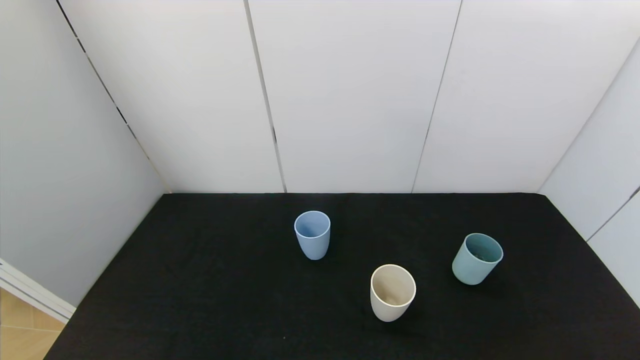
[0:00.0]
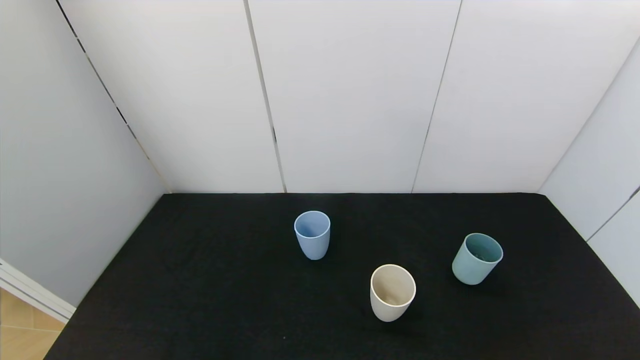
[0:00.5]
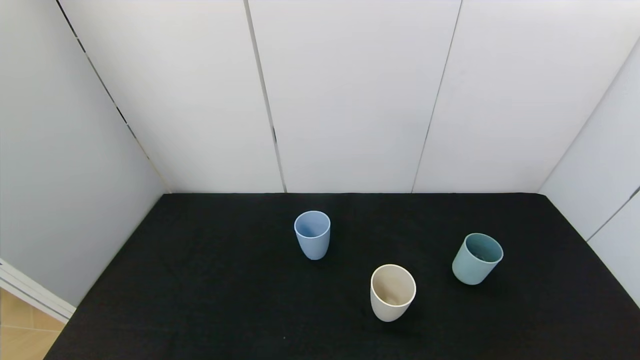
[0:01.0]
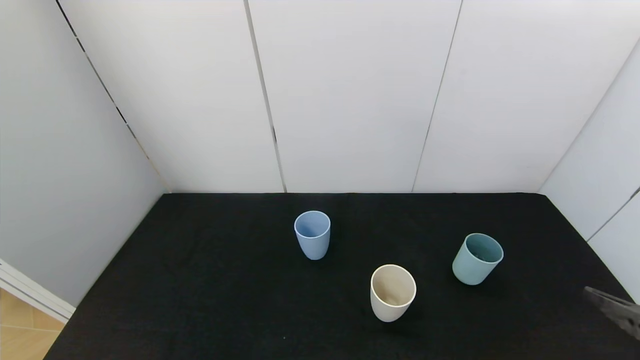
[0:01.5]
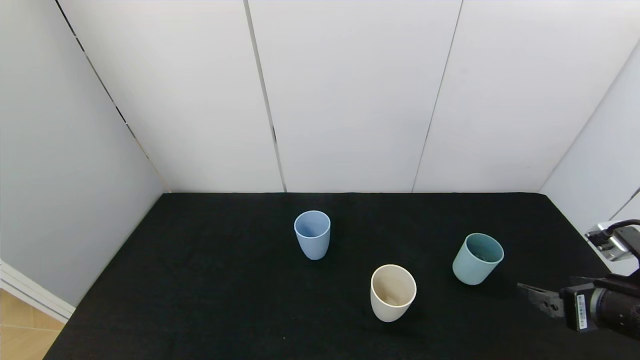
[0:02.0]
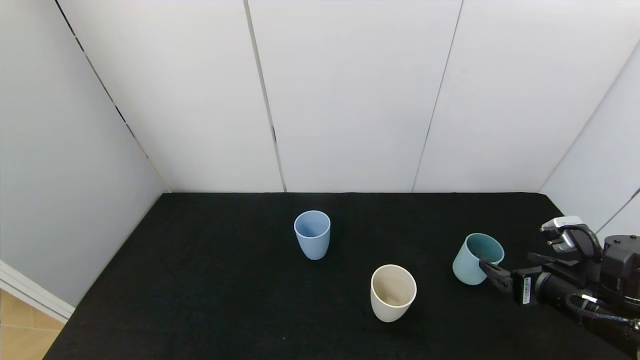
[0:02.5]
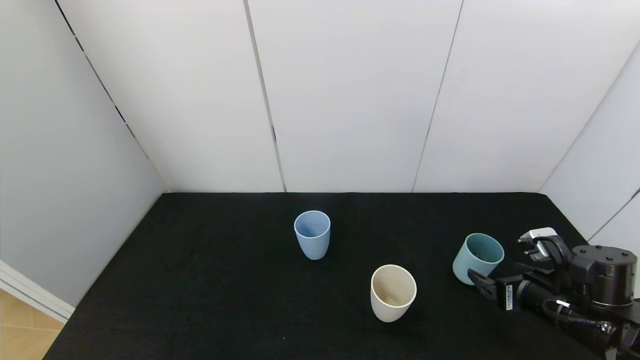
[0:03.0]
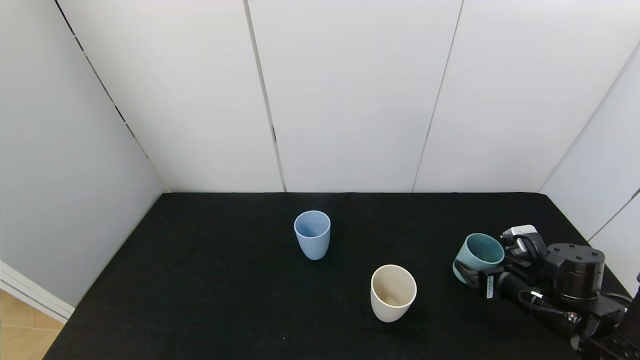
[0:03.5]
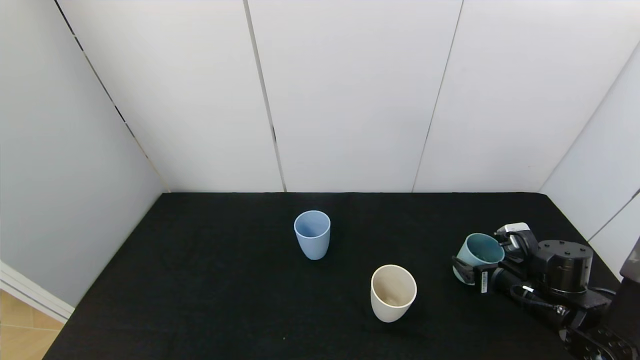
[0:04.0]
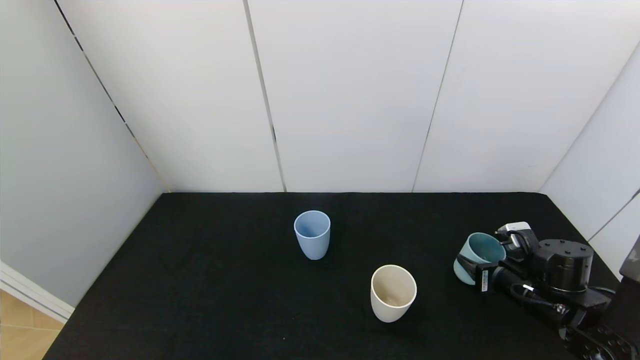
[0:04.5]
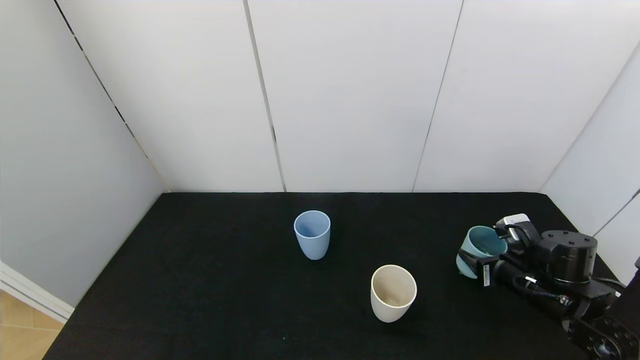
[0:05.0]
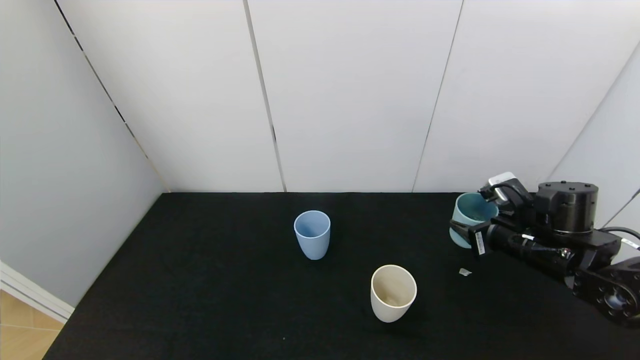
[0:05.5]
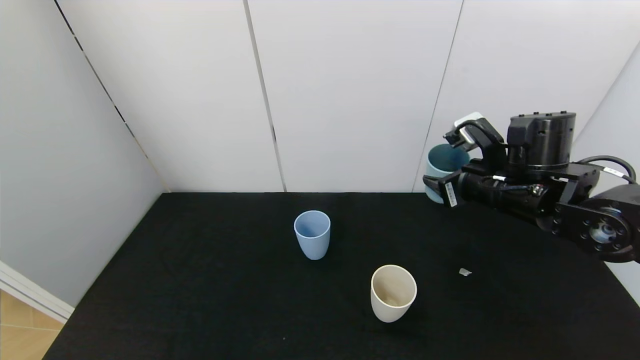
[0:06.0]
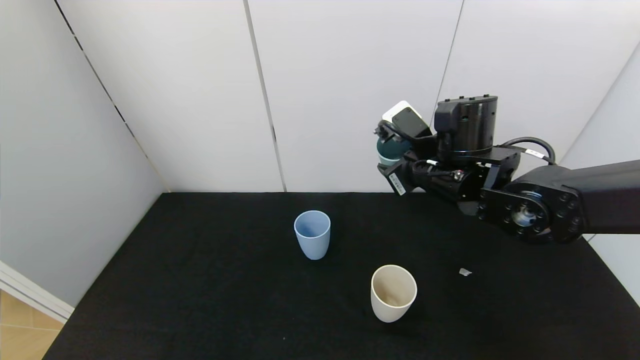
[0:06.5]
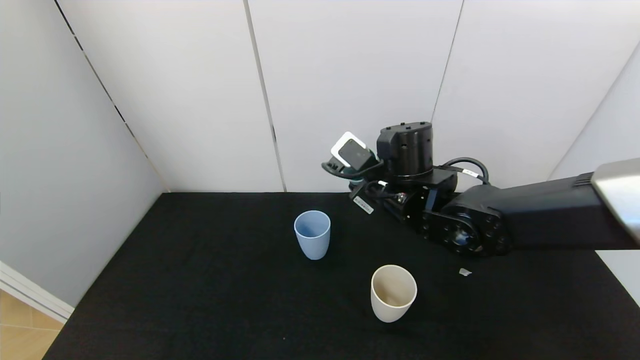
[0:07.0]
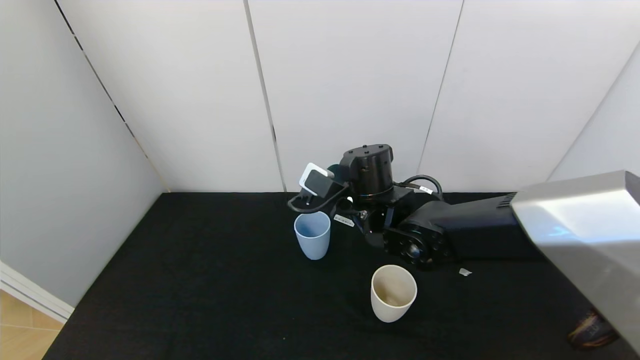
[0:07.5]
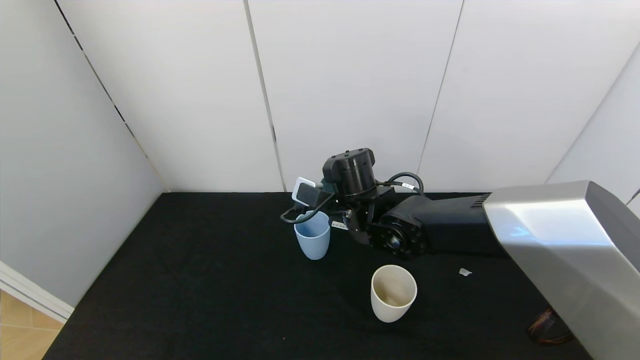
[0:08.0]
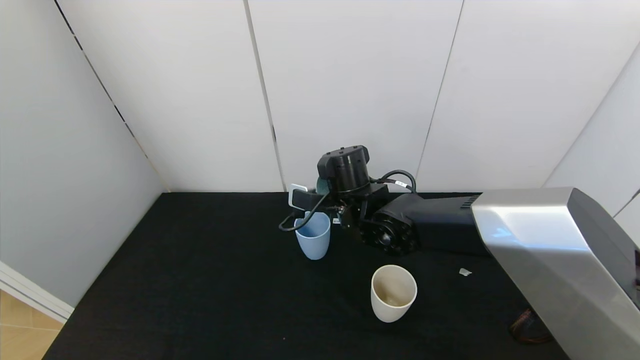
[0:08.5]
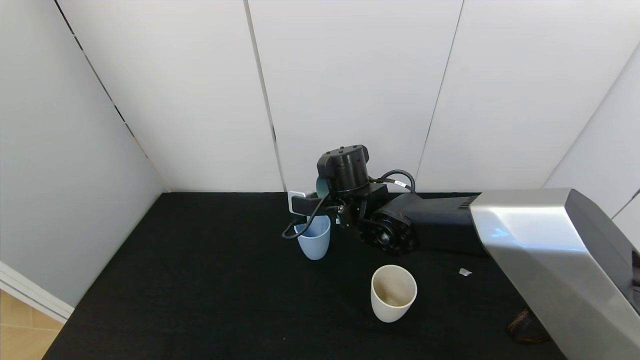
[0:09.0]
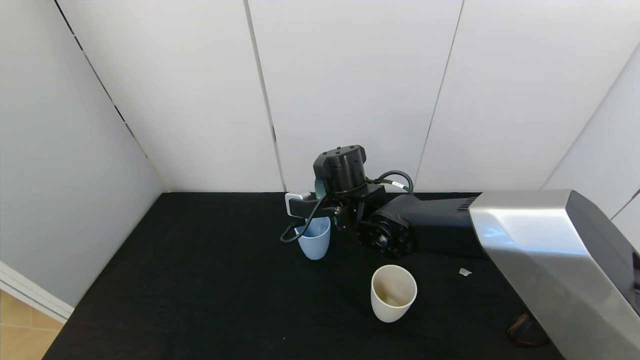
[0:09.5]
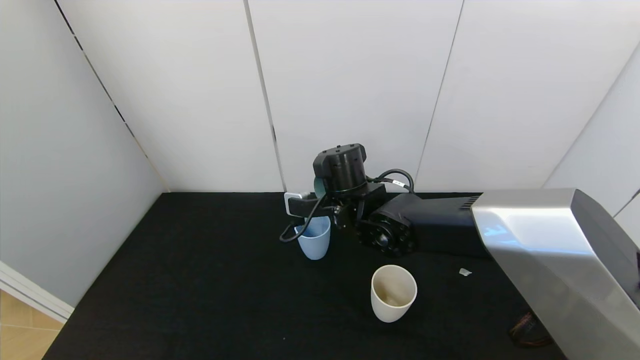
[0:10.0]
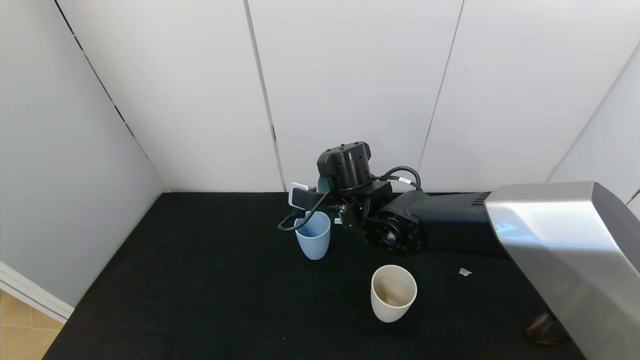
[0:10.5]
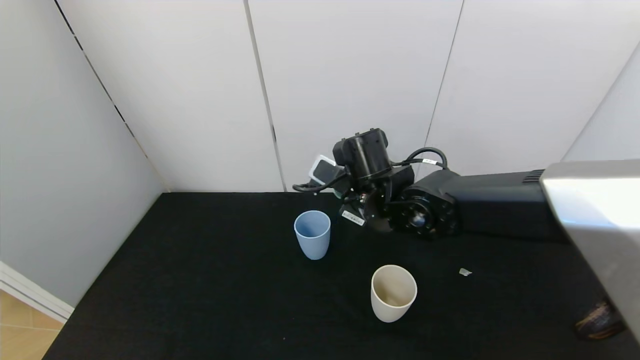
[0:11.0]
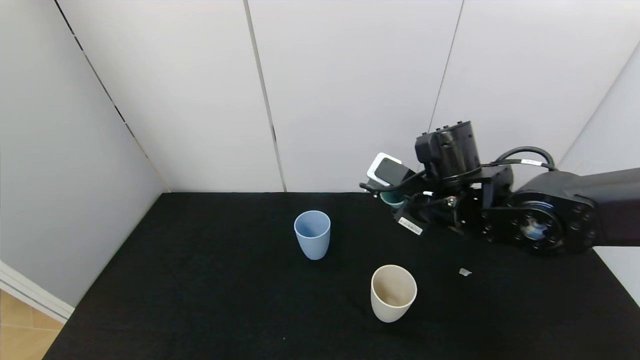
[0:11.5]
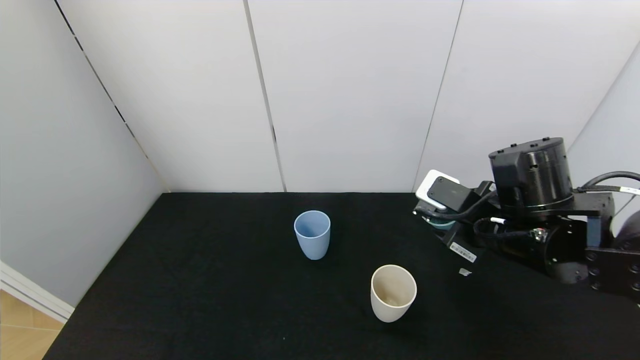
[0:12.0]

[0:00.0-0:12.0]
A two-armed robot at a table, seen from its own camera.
Task of the whole recording: use the gripper to pour the water into the other two cups on black table.
Step, 0:00.0 to 0:04.5: Grasp the green cup with the right gripper.
Step, 0:05.0 to 0:10.5: Pour water from green cup to blue cup with the right gripper.
0:00.0 to 0:02.0: The right gripper goes roughly 20 cm forward.
0:02.0 to 0:04.0: The right gripper travels forward and downward by about 15 cm.
0:04.0 to 0:06.0: The right gripper travels upward and to the left by about 20 cm, and closes.
0:06.0 to 0:08.0: The right gripper is displaced to the left by about 20 cm.
0:10.0 to 0:12.0: The right gripper travels to the right and backward by roughly 20 cm.

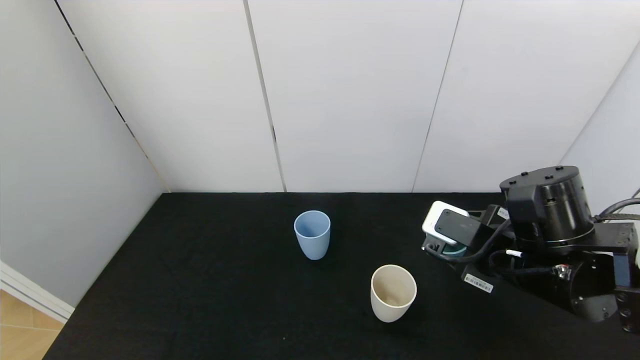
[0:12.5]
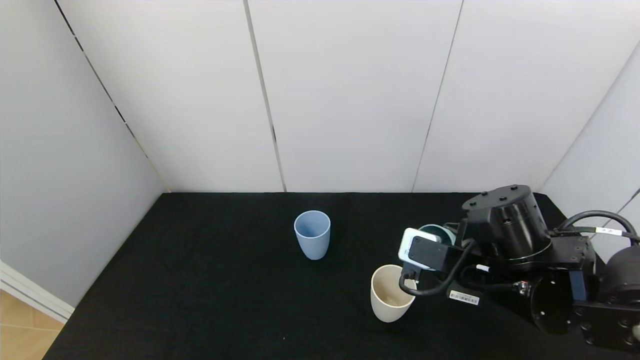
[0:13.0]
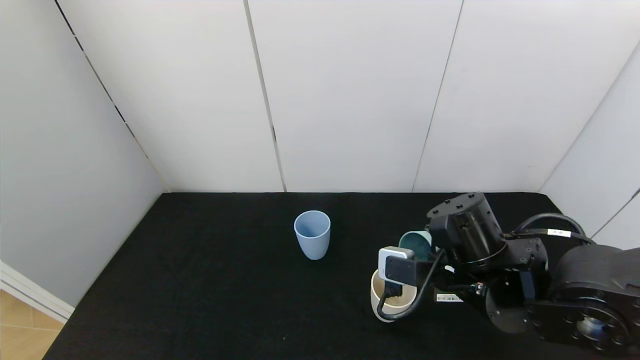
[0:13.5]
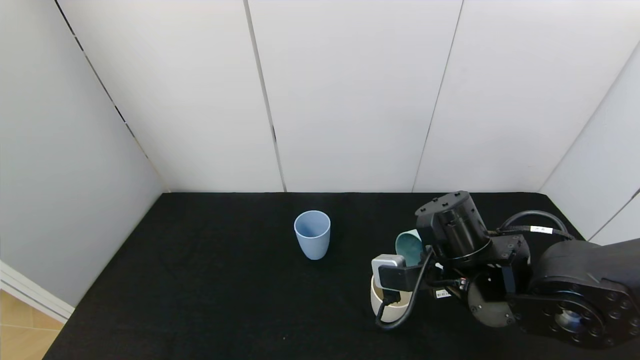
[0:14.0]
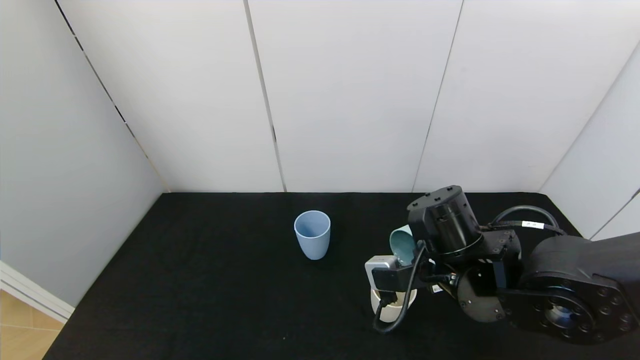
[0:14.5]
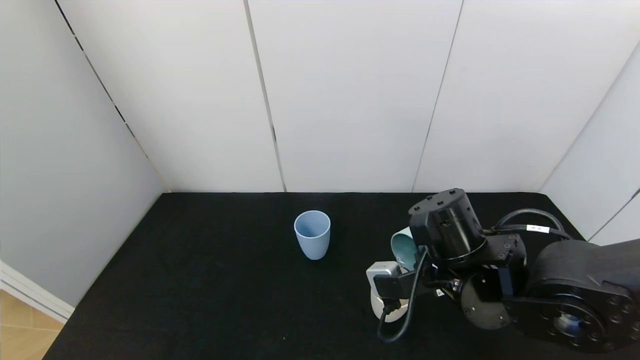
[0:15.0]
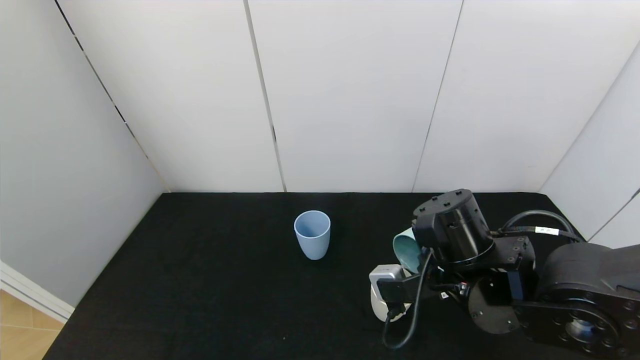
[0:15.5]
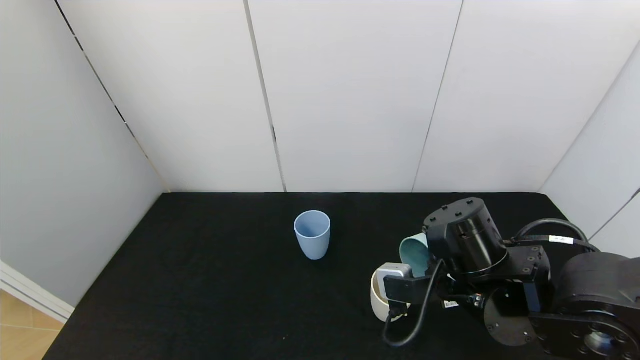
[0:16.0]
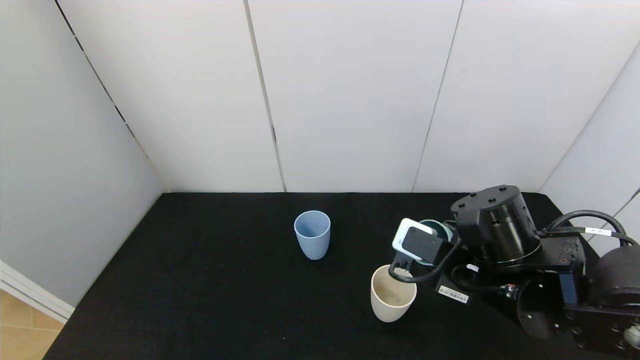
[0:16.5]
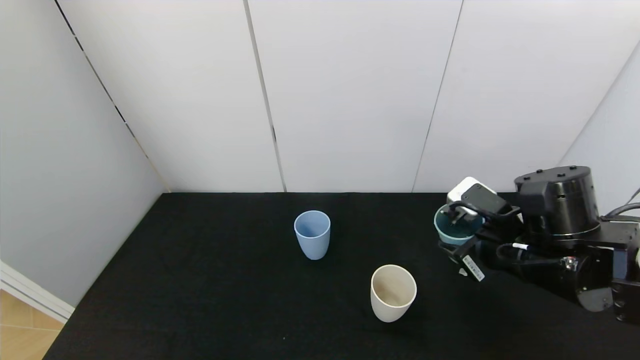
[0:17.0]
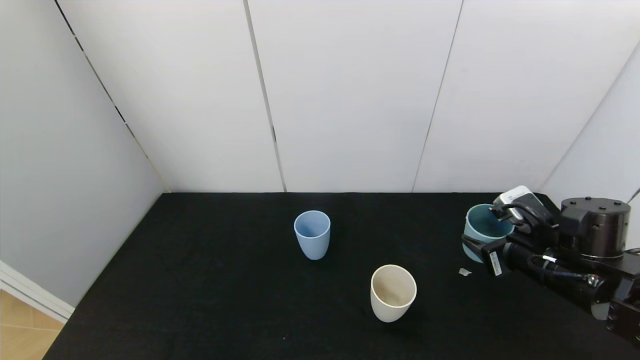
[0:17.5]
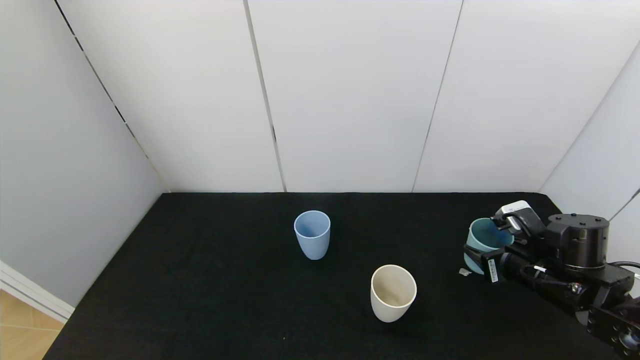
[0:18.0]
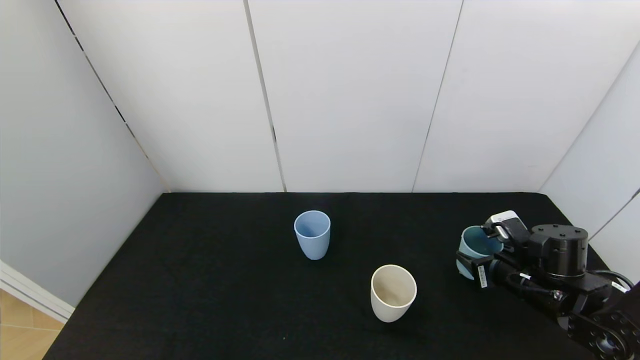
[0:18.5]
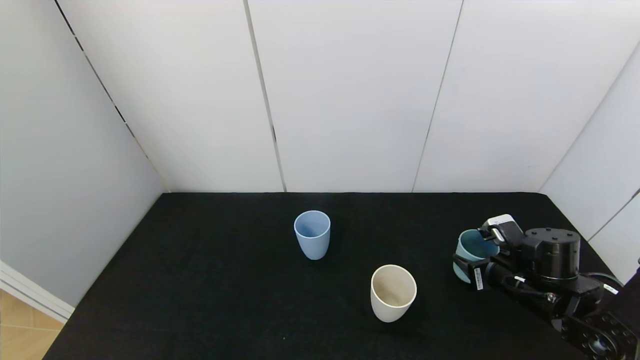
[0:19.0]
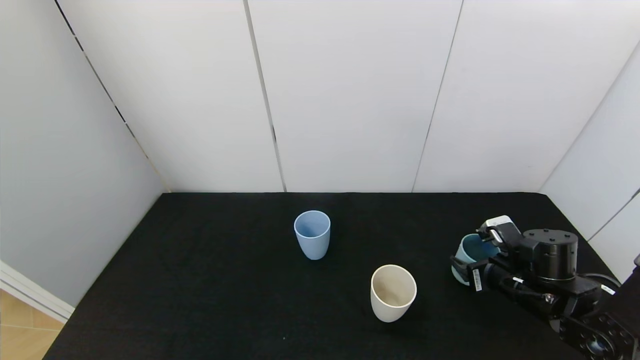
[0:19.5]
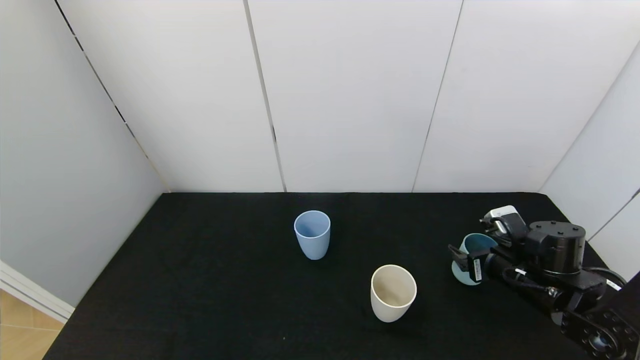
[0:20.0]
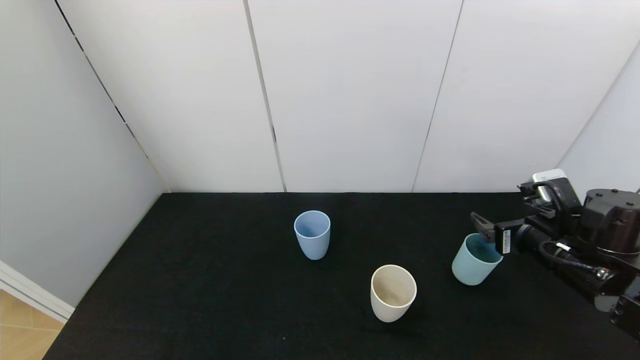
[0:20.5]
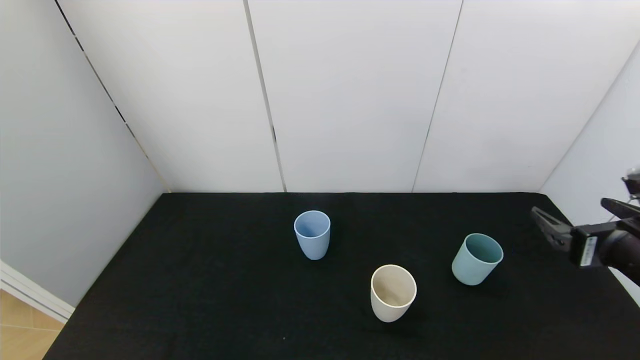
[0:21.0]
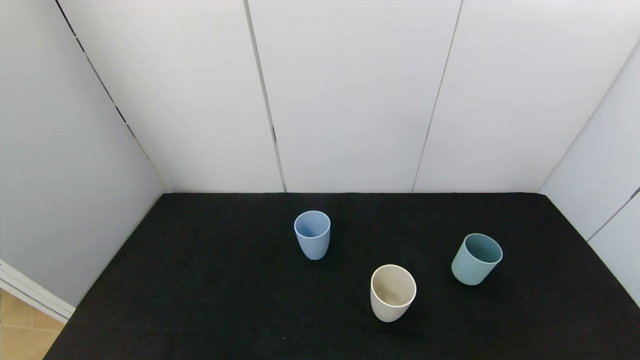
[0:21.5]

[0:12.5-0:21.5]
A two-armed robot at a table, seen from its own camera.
Task of the whole recording: use the gripper to pour the water into the other two cups on black table.
Step, 0:12.5 to 0:16.0: Pour water from green cup to white cup with the right gripper.
Step, 0:16.5 to 0:20.0: Place the green cup with the right gripper.
0:12.5 to 0:14.5: The right gripper goes about 5 cm to the left.
0:14.5 to 0:17.0: The right gripper shifts approximately 10 cm to the right.
0:17.0 to 0:19.5: The right gripper heads downward and to the right, covering some 15 cm, and opens its fingers.
0:19.5 to 0:21.5: The right gripper is displaced backward and upward by some 25 cm, and opens its fingers.
